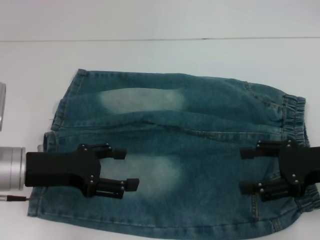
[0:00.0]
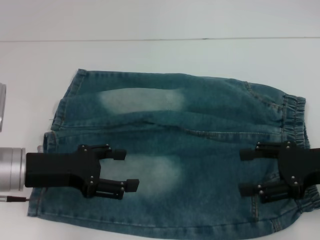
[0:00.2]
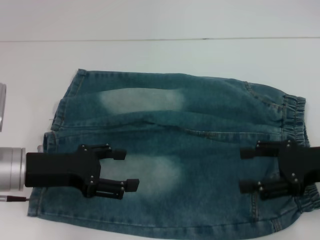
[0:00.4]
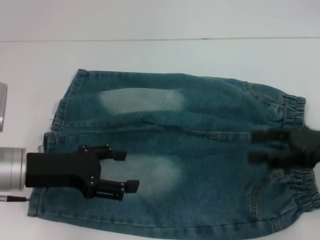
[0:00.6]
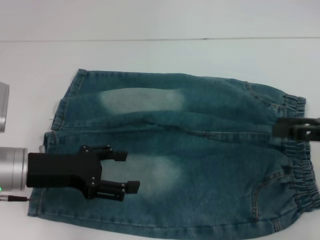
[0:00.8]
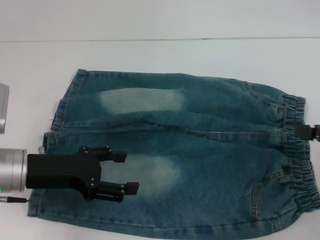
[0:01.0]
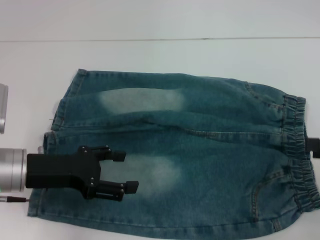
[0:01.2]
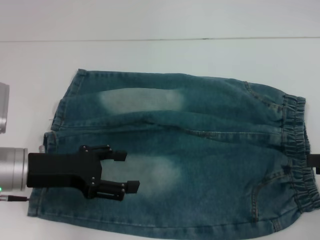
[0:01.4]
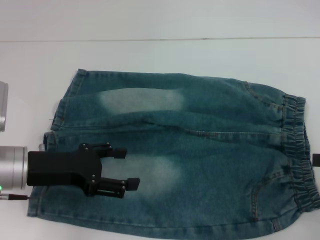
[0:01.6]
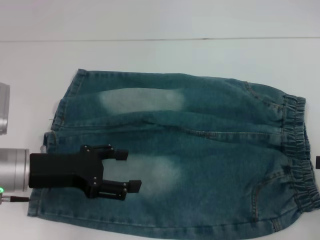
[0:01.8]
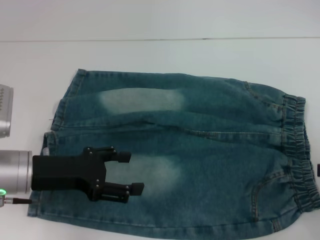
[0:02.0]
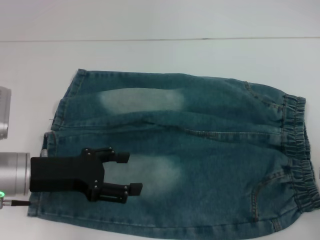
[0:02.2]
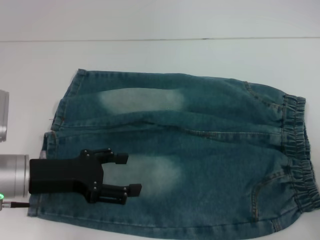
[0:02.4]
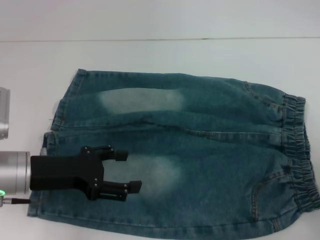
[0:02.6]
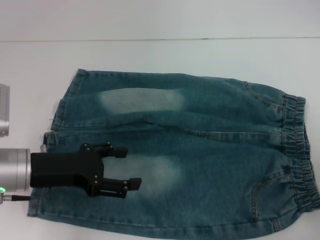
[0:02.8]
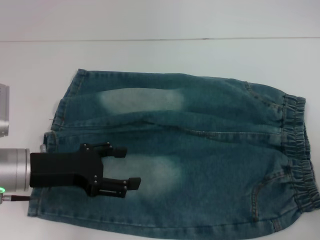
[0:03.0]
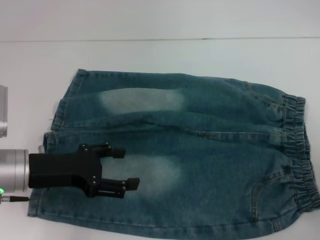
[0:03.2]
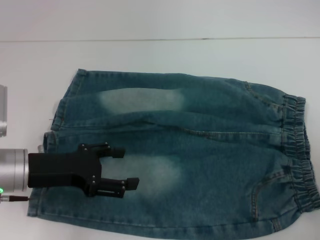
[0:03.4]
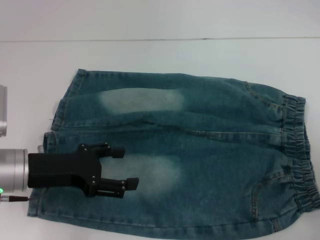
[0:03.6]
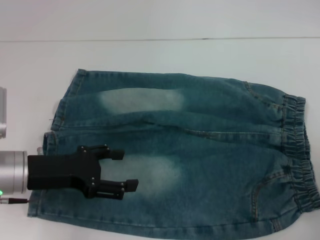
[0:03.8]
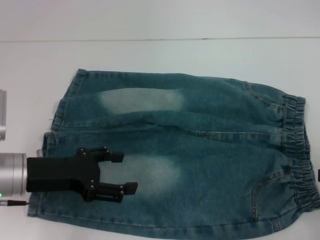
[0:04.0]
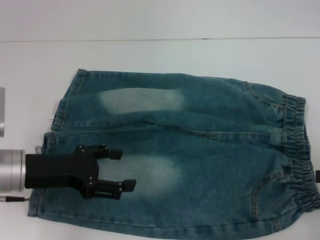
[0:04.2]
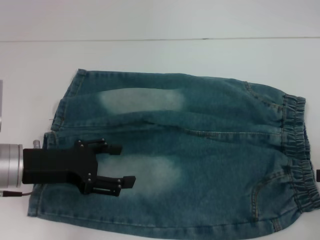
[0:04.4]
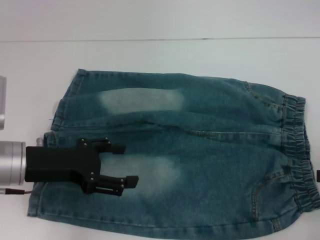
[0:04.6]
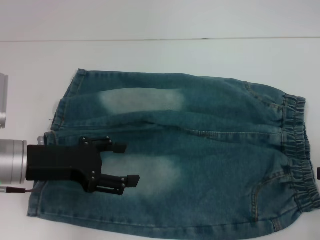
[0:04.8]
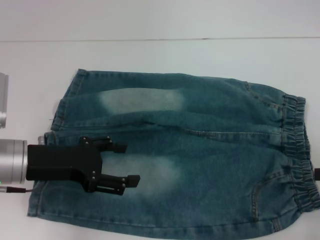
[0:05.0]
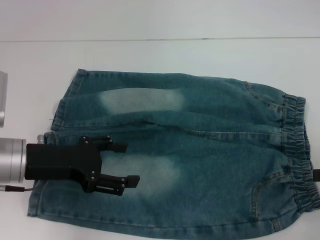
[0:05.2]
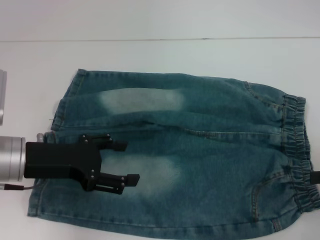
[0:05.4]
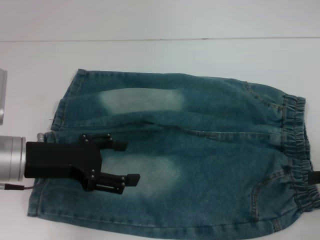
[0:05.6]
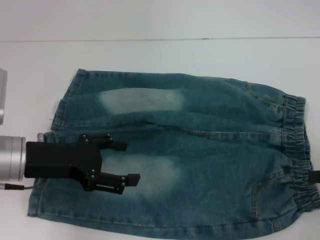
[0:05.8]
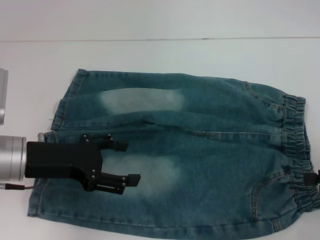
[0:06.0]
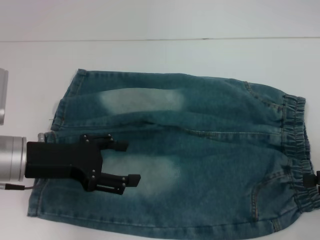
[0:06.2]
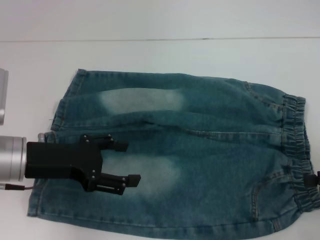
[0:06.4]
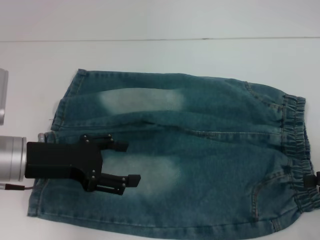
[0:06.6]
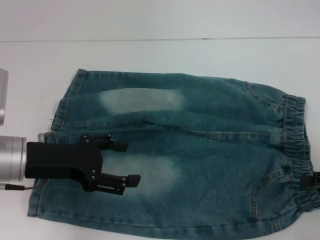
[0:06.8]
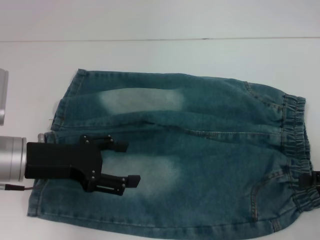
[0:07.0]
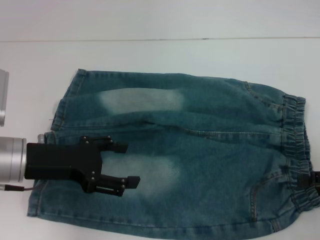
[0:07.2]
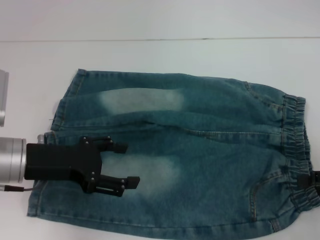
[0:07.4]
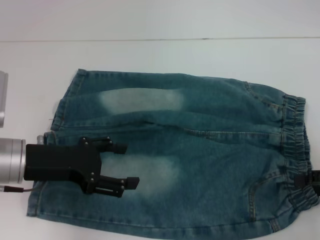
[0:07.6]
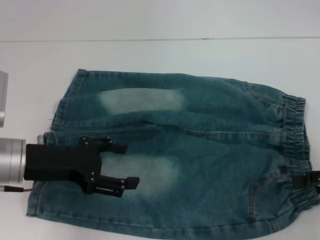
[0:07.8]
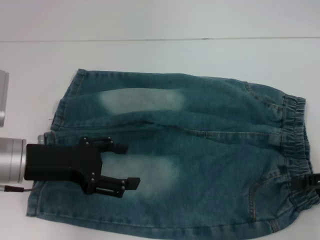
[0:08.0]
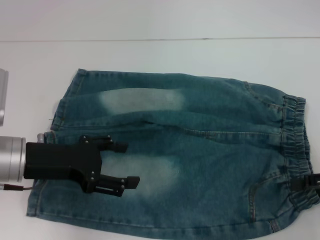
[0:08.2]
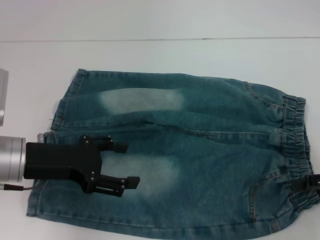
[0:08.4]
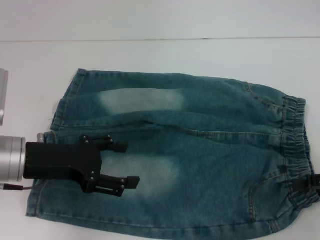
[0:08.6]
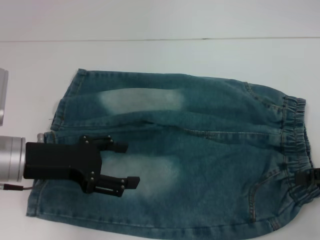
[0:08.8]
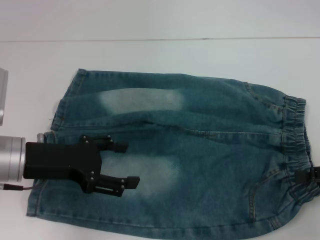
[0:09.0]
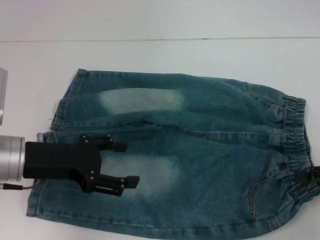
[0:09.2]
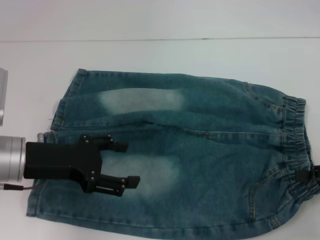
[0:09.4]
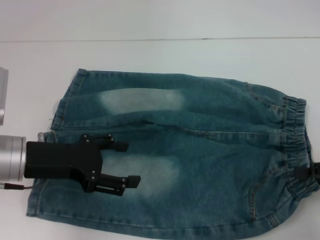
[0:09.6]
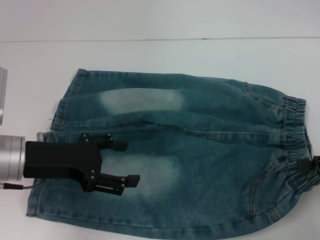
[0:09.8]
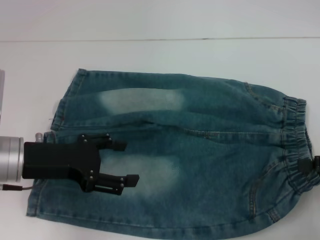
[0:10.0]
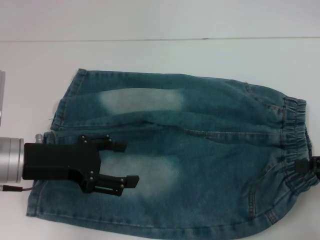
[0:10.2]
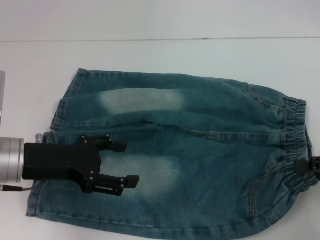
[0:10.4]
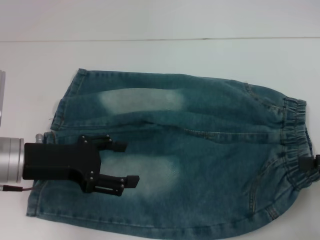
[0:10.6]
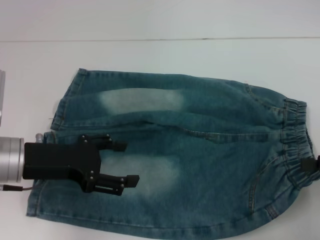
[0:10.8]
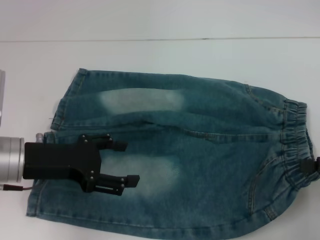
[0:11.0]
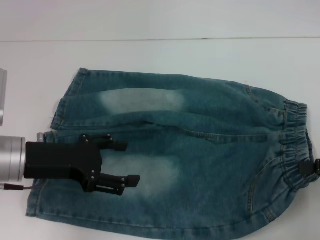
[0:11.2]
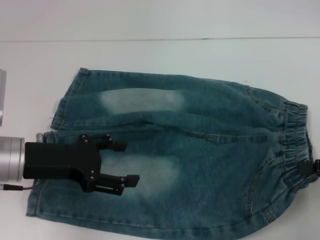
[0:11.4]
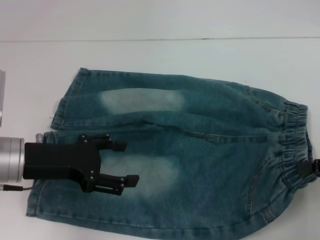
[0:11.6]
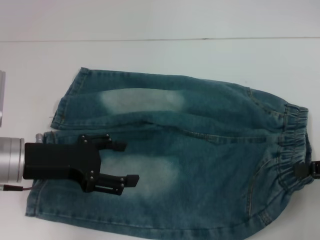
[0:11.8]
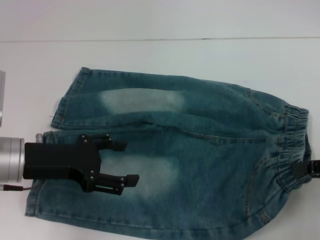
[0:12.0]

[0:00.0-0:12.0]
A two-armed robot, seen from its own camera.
0:00.0 to 0:01.6: The right gripper travels to the right by approximately 10 cm.
0:01.6 to 0:03.0: The grippers stay close to where they were, moving slightly.
0:03.0 to 0:04.4: Both grippers stay put.
0:04.4 to 0:07.6: The grippers make only small movements.
0:07.6 to 0:09.0: The two grippers keep their place.
0:09.0 to 0:10.4: The grippers stay close to where they were, moving slightly.
0:10.4 to 0:12.0: The right gripper closes up.

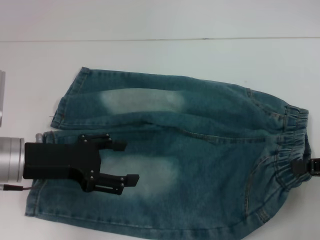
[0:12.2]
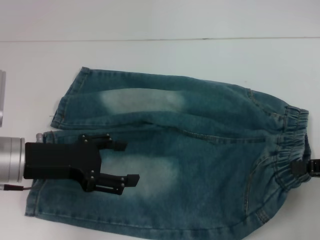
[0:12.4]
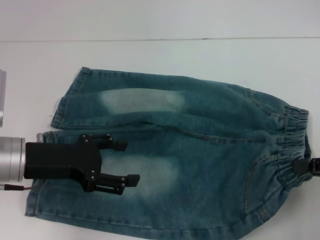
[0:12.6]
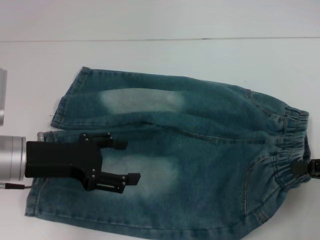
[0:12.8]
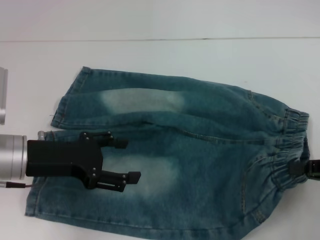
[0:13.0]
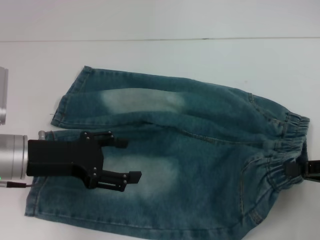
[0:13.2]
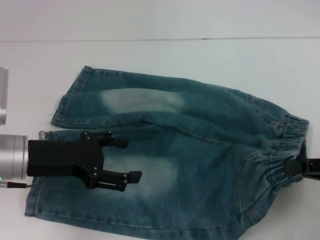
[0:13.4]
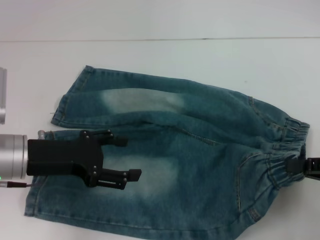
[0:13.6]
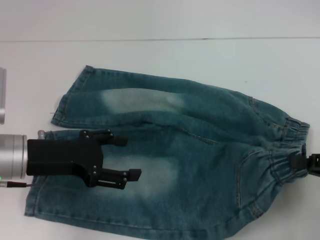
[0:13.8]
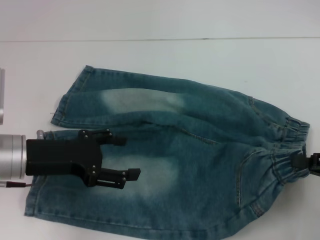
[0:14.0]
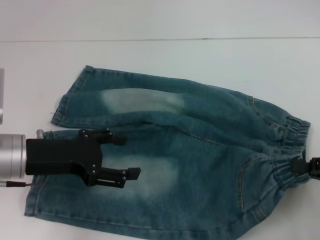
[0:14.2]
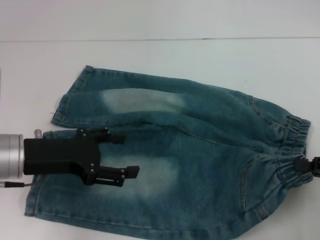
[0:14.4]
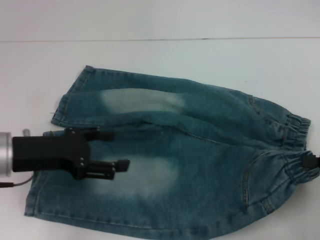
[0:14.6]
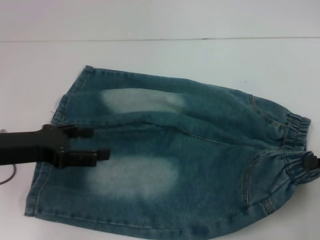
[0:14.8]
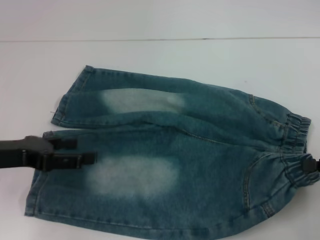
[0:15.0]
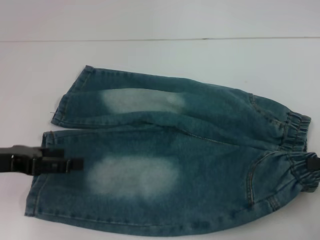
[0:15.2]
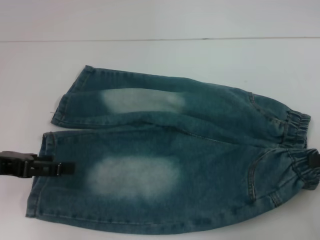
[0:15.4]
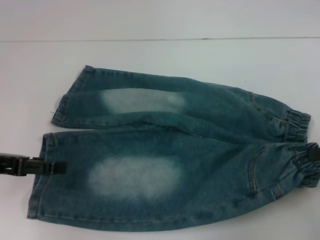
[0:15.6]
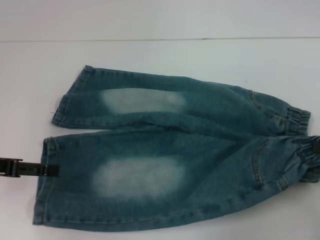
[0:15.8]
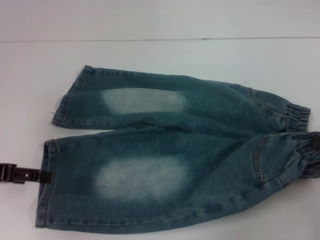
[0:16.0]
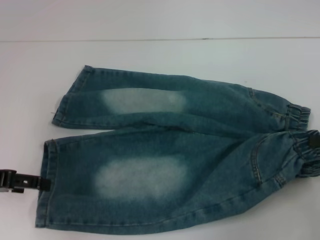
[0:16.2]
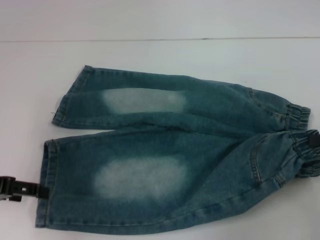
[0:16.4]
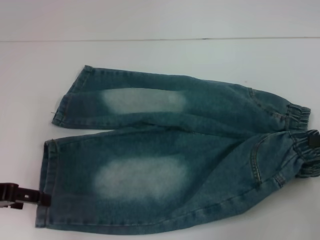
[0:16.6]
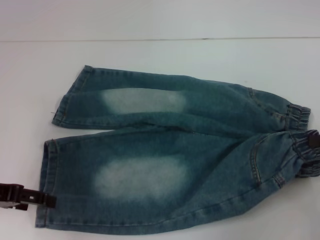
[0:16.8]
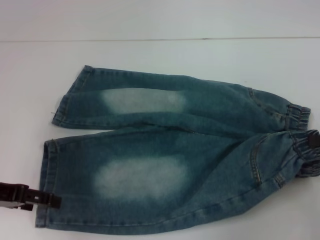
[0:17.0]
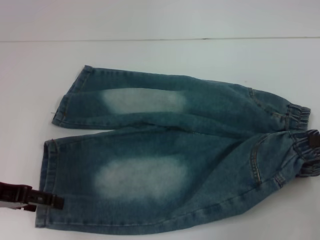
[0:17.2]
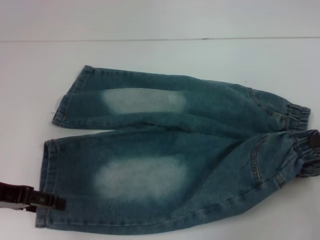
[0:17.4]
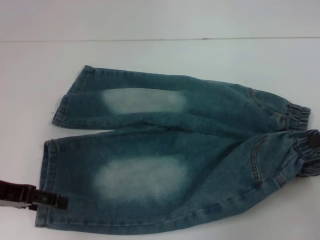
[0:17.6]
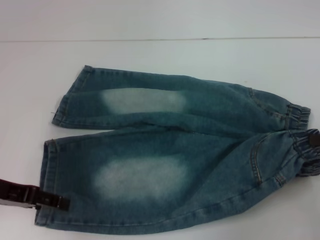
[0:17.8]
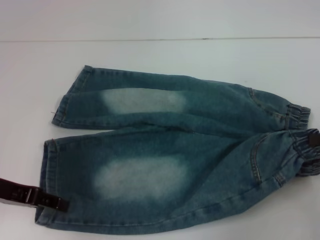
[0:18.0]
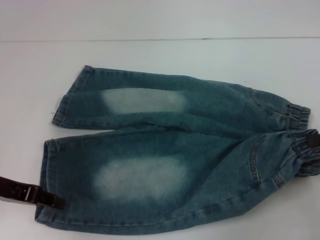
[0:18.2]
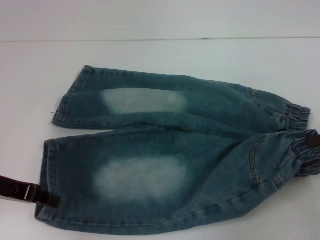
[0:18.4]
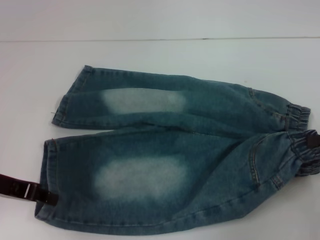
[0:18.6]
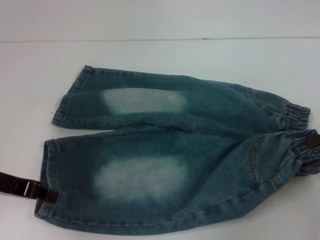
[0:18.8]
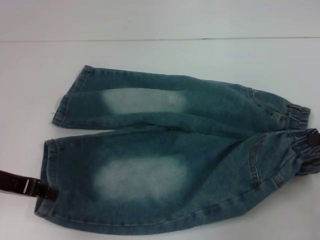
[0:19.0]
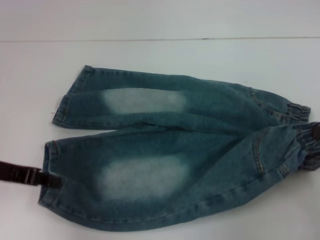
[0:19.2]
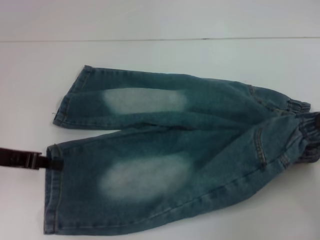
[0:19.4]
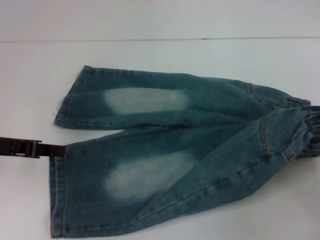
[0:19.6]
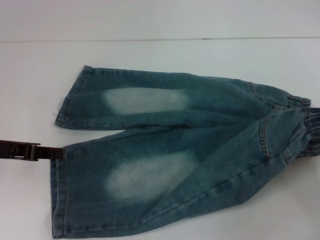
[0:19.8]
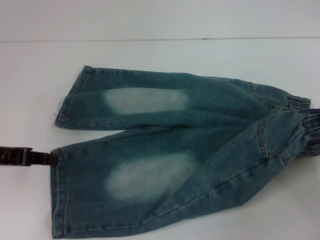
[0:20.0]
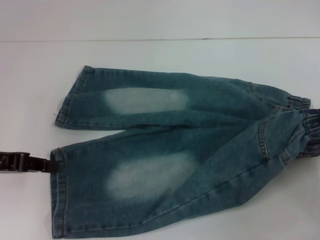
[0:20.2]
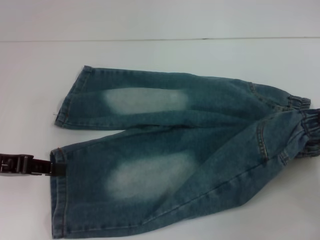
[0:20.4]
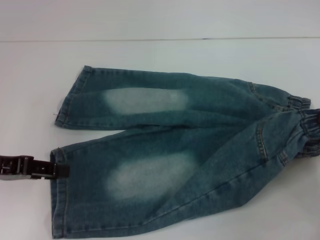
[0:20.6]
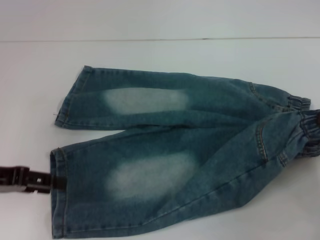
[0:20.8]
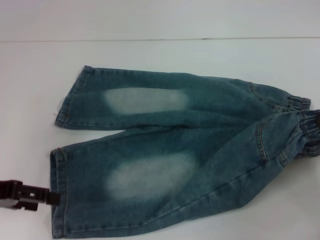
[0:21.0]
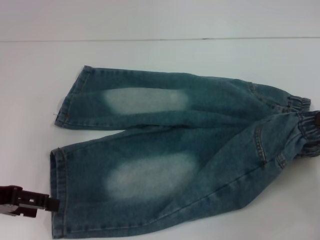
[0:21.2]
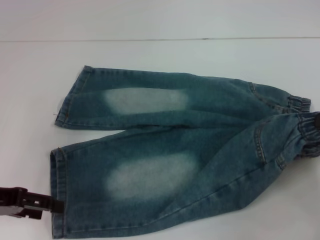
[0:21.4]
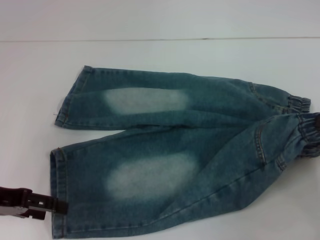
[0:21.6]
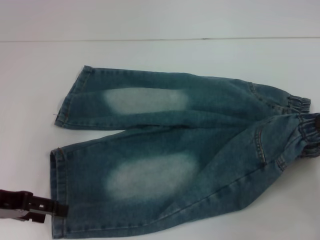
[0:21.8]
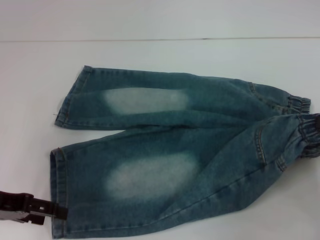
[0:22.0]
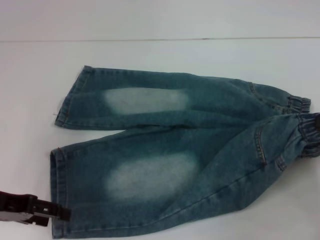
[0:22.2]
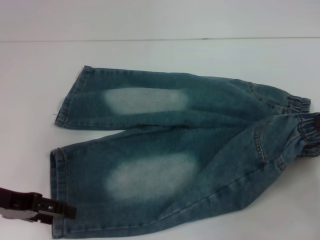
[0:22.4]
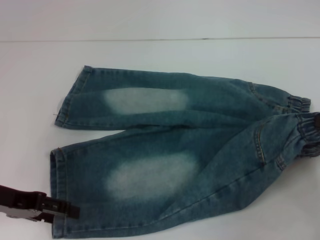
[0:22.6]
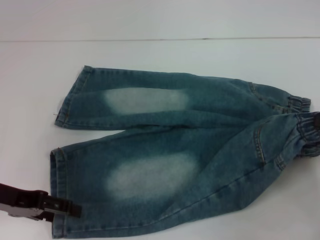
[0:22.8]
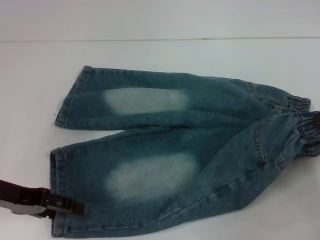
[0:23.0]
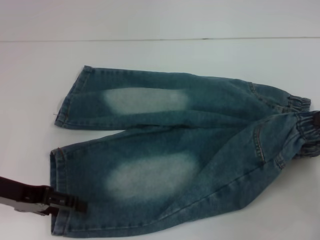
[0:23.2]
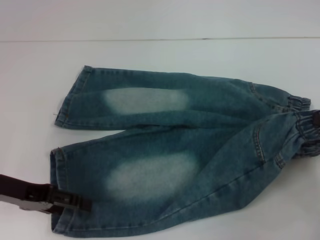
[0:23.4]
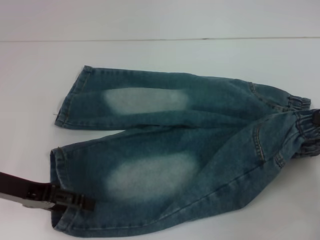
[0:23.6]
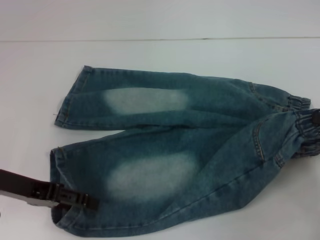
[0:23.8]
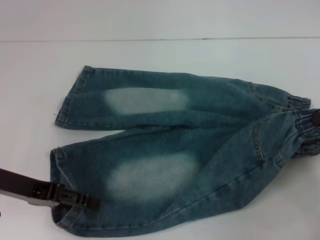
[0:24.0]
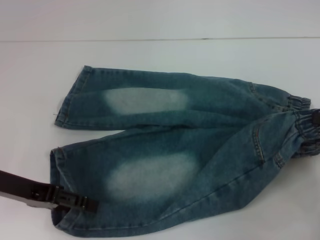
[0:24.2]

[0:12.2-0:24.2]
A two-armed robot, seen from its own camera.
Step, 0:12.8 to 0:18.6: Grab the lower left pant leg with your left hand.
0:12.2 to 0:13.8: The grippers move only a little.
0:13.8 to 0:15.2: The left gripper is displaced to the left by approximately 5 cm.
0:16.6 to 0:18.2: The left gripper closes.
0:18.2 to 0:19.8: The left gripper closes up.
0:19.8 to 0:21.2: The left gripper opens.
0:21.2 to 0:24.2: There are only small adjustments of the grippers.
